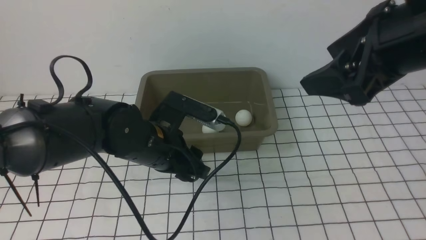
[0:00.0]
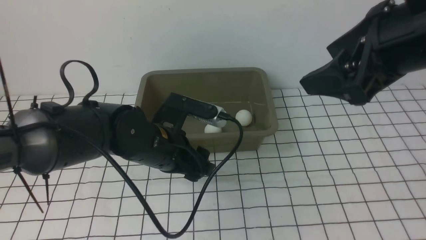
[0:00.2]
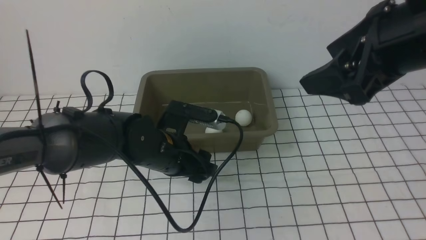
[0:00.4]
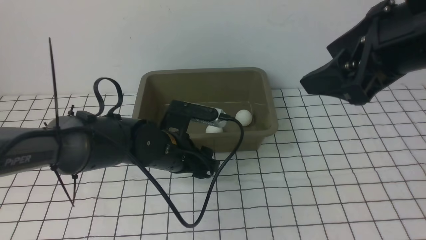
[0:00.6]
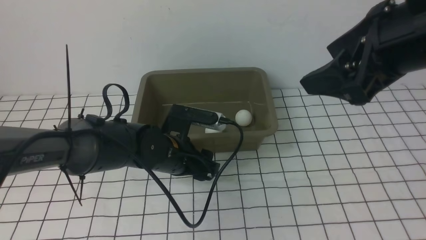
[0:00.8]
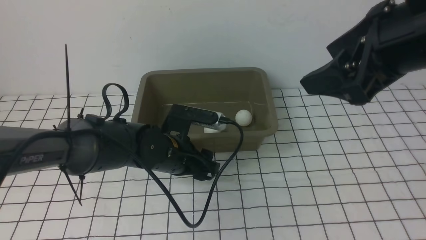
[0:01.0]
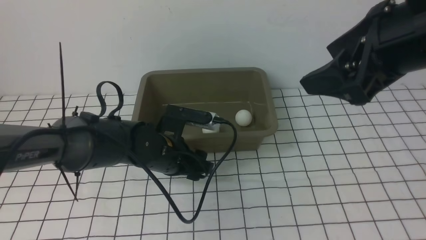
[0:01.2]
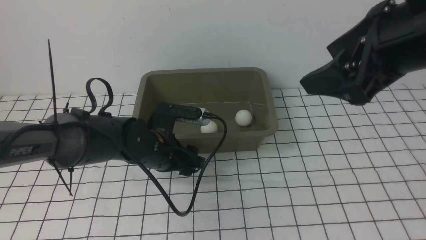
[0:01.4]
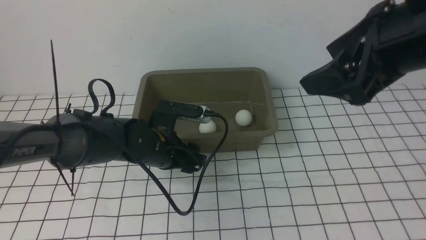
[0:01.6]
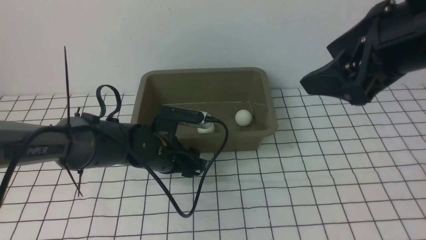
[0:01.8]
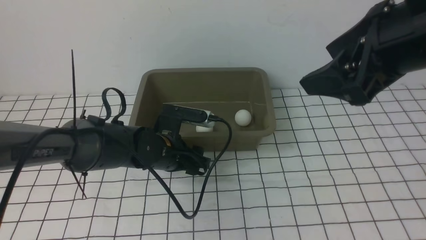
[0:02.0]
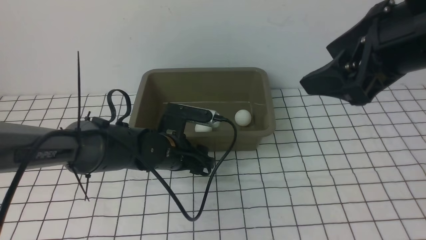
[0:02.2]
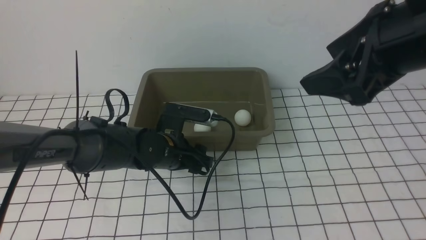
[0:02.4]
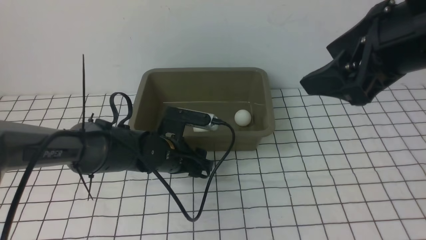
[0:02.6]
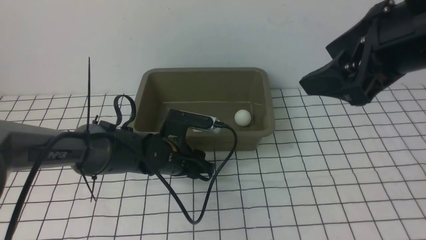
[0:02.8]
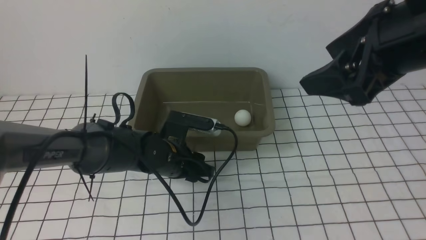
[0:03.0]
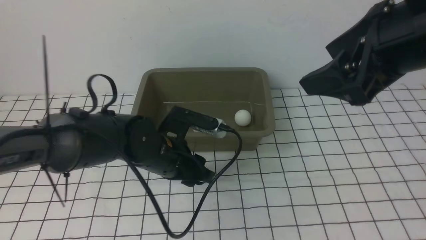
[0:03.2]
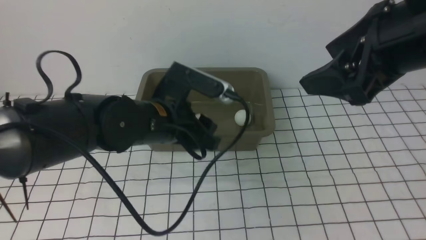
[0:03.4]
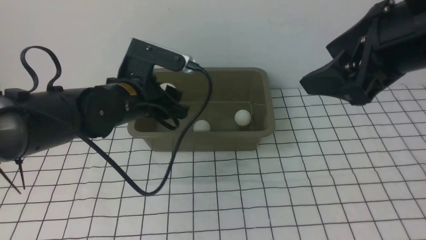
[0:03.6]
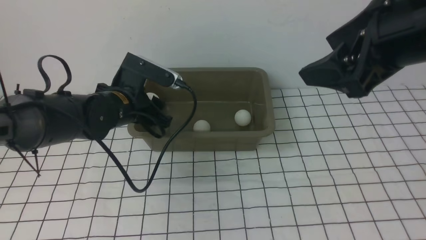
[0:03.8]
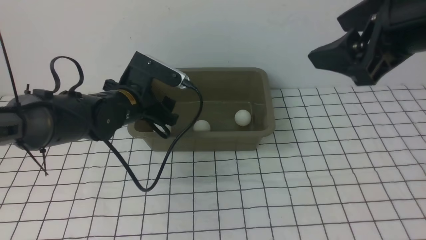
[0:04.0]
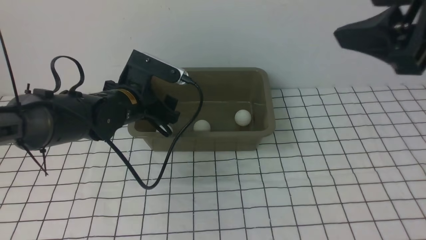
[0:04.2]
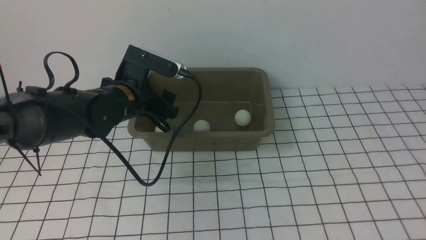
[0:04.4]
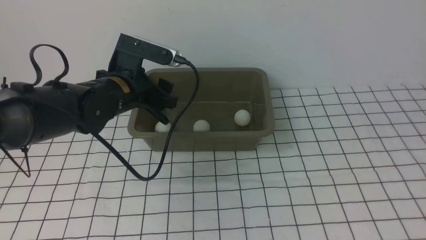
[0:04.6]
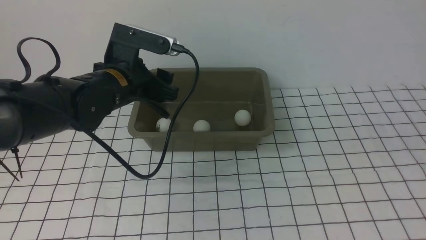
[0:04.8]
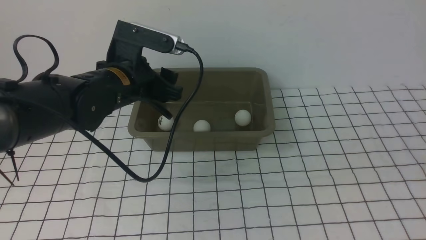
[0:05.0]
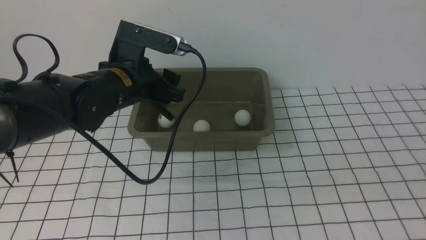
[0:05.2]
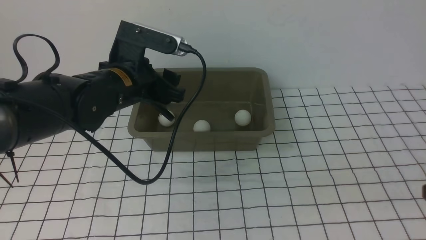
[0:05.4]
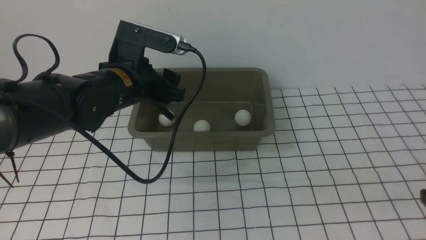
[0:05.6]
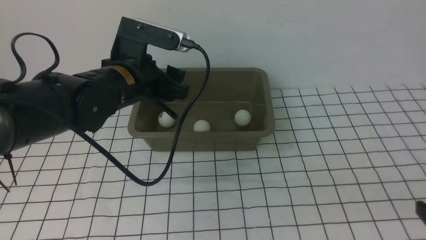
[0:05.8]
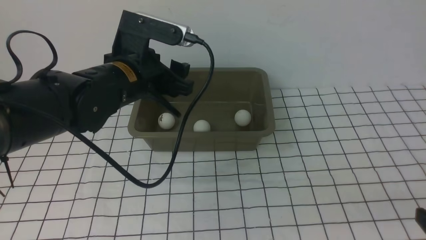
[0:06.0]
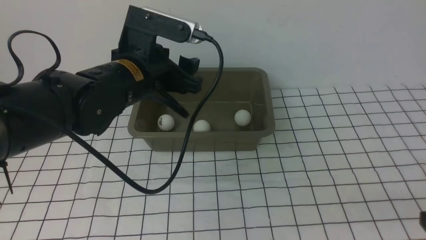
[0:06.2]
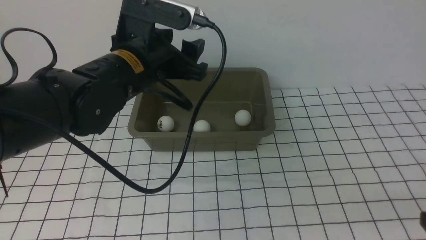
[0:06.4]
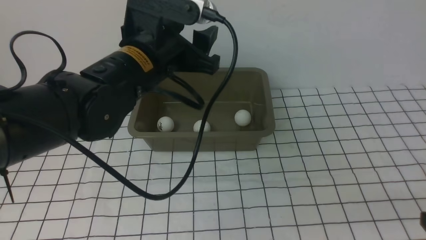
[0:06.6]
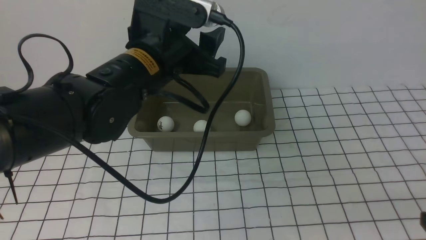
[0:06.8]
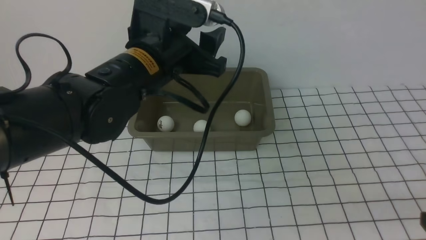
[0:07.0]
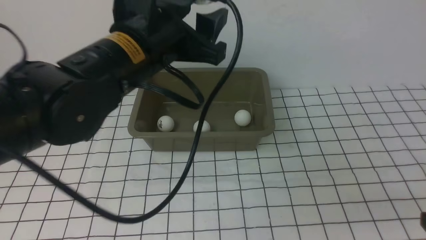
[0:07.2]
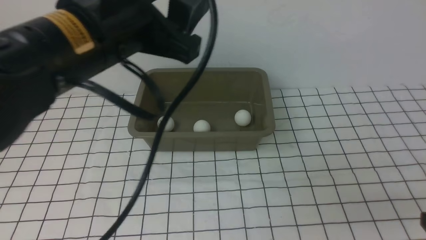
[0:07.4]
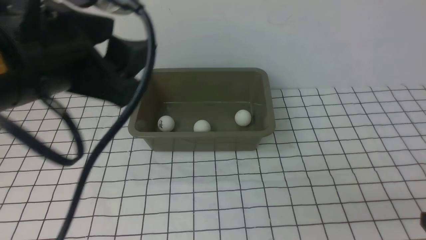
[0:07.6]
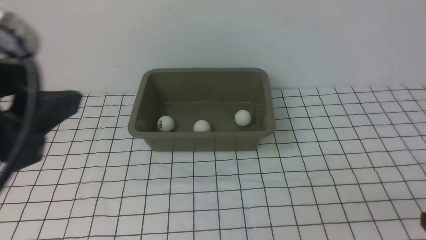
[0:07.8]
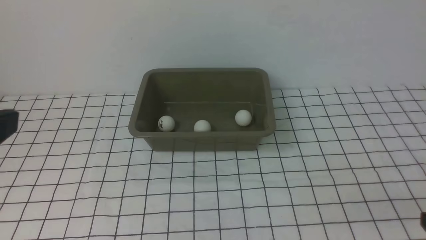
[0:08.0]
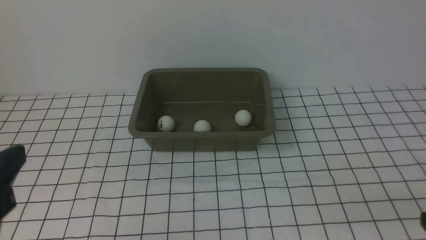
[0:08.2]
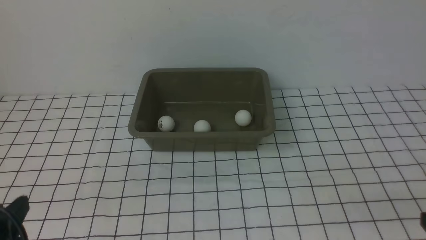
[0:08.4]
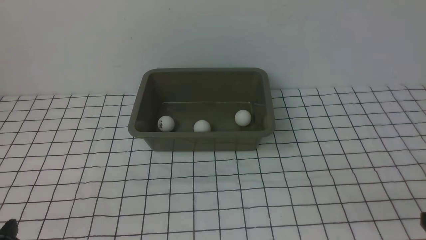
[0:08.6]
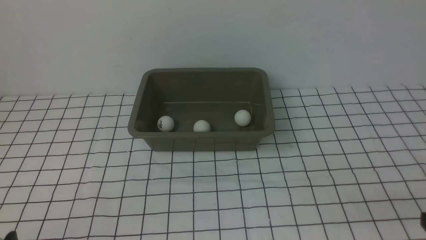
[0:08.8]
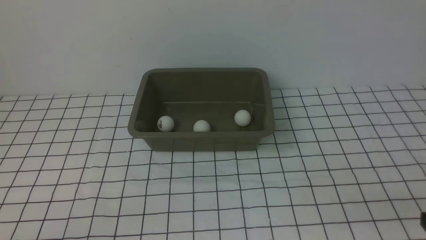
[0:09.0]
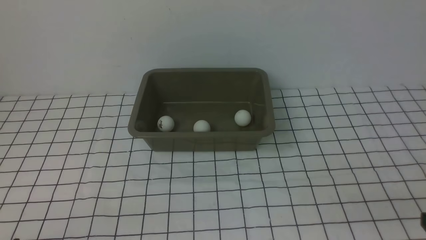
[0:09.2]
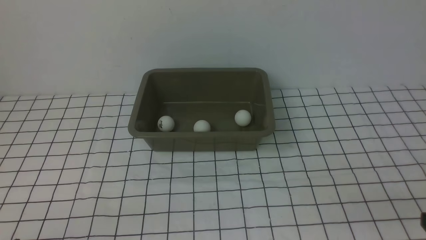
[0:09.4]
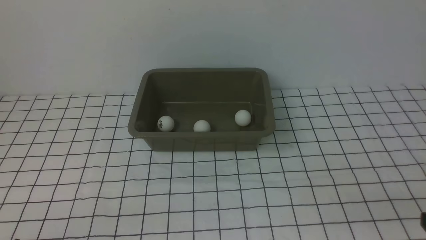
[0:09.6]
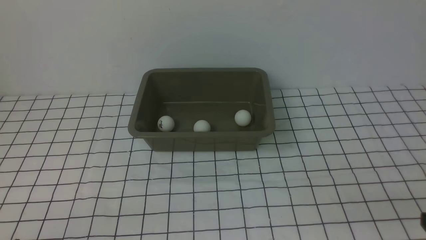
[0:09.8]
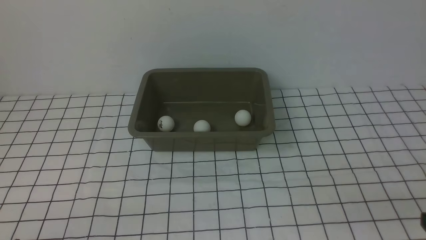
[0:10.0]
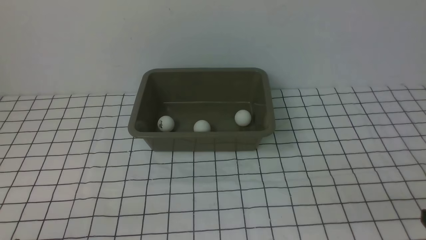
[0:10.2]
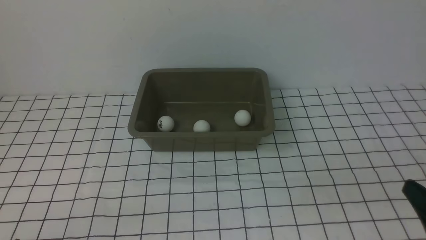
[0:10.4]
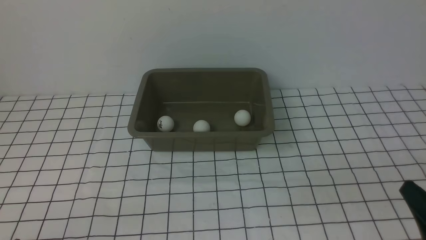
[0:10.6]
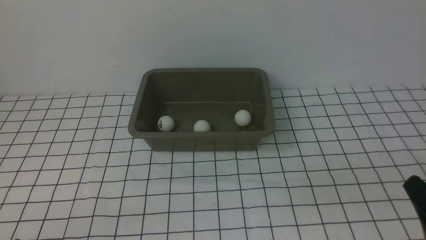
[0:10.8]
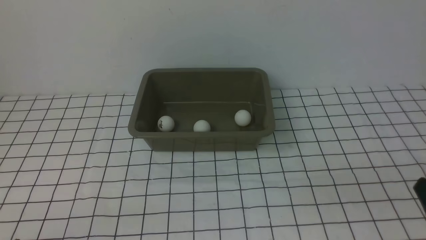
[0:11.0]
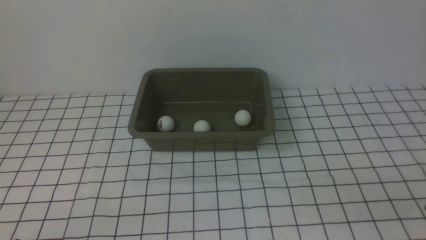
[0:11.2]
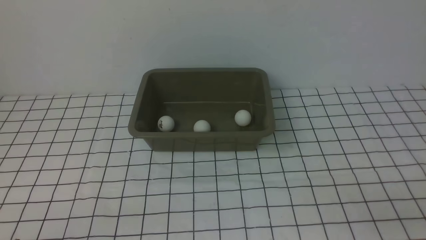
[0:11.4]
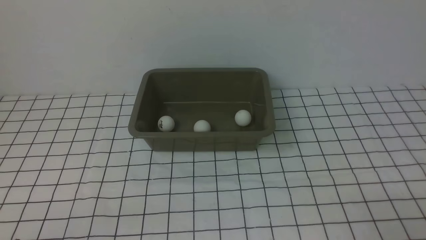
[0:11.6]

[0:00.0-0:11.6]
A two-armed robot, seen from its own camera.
Step, 0:00.0 to 0:03.2: use the left arm to clamp the table tennis ball closest to it.
Step, 0:03.4 to 0:04.0: use the left arm to put the table tennis ball into the box.
0:00.0 to 0:01.4: The left gripper travels downward by some 5 cm, and opens up.
0:01.4 to 0:02.8: The left gripper closes.
0:02.8 to 0:04.4: The left gripper is displaced upward and to the left by approximately 10 cm, and opens. The right gripper moves backward, upward and to the right, approximately 15 cm.
0:04.4 to 0:05.8: The left gripper heads upward, covering roughly 5 cm, and closes. The right gripper is displaced downward by approximately 25 cm.
0:05.8 to 0:07.2: The left gripper shifts approximately 10 cm upward and backward.
0:07.2 to 0:08.8: The left gripper shifts roughly 35 cm backward, to the left and downward.

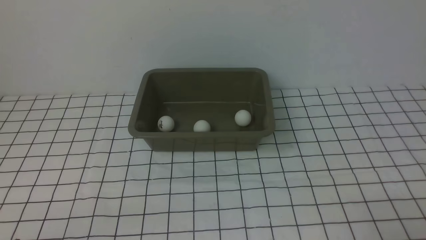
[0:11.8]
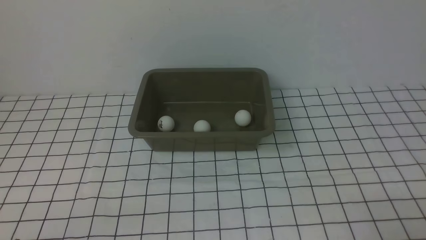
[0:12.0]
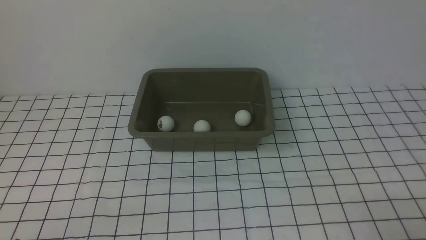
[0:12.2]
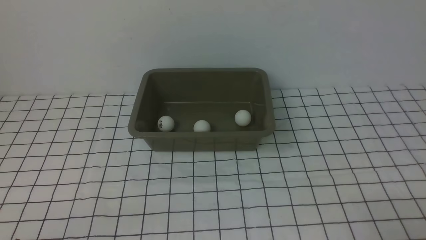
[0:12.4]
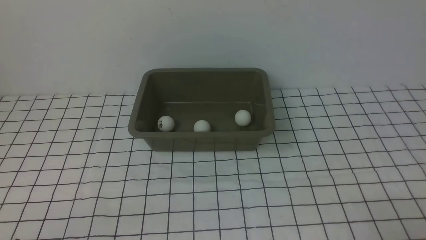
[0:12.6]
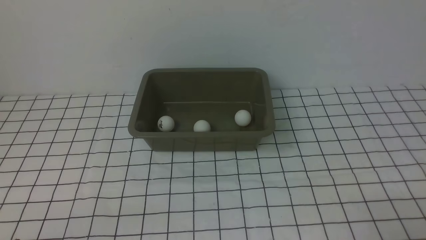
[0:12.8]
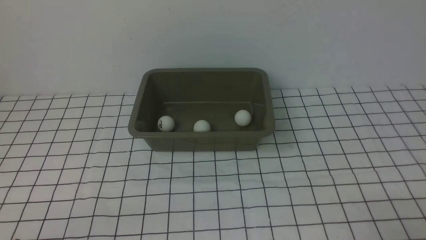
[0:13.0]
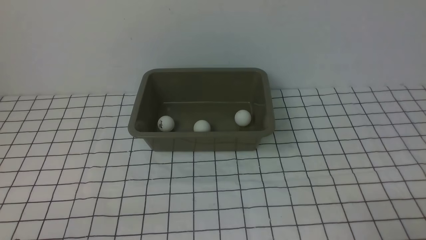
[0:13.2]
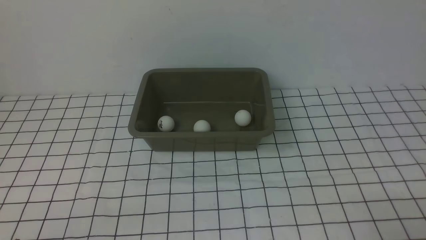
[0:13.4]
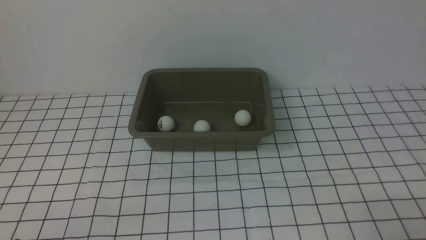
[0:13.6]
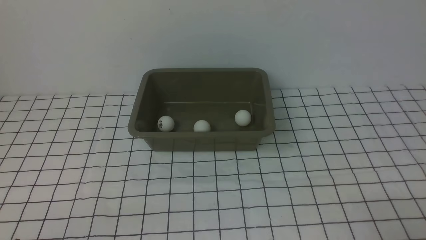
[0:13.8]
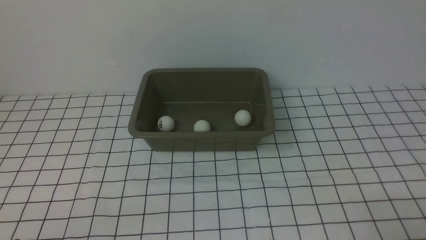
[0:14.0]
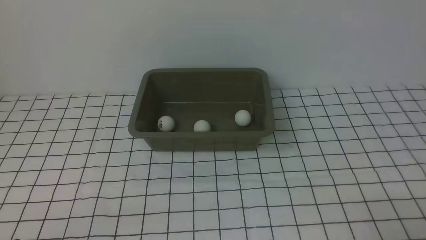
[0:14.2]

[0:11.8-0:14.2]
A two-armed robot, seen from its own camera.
0:11.8 to 0:14.2: Both grippers stay put.

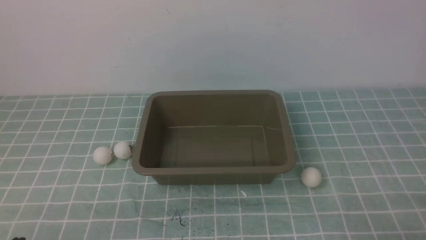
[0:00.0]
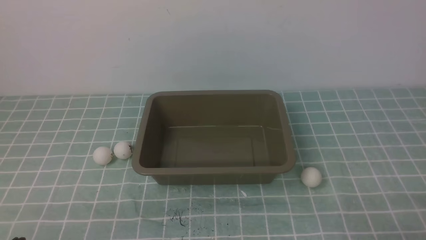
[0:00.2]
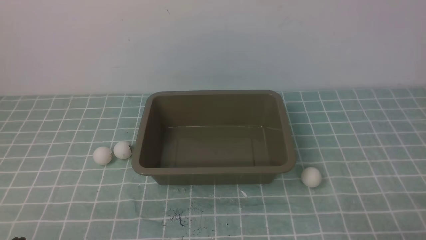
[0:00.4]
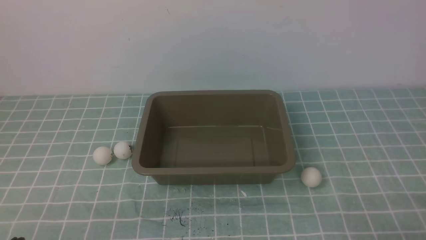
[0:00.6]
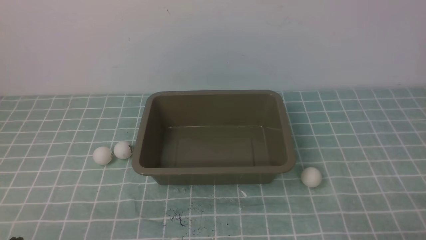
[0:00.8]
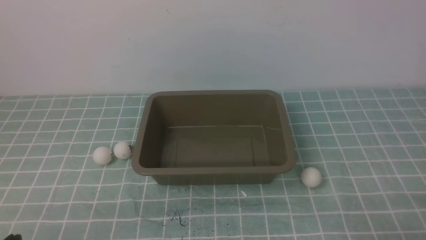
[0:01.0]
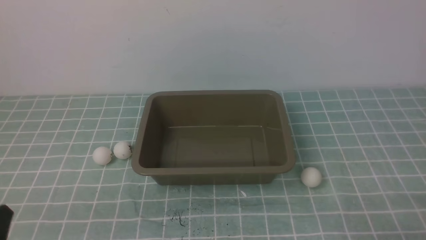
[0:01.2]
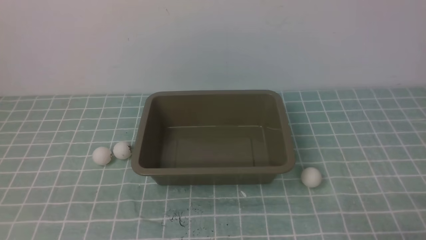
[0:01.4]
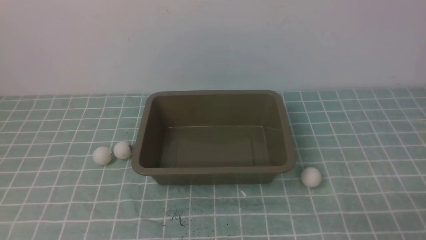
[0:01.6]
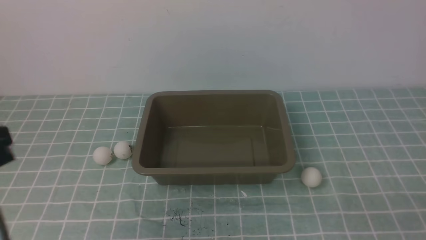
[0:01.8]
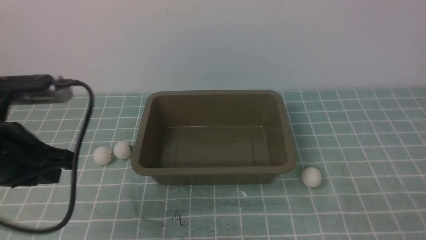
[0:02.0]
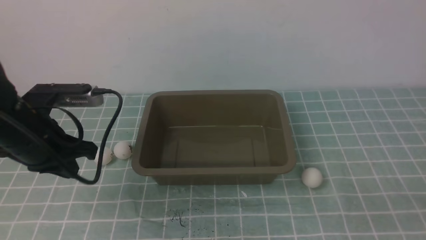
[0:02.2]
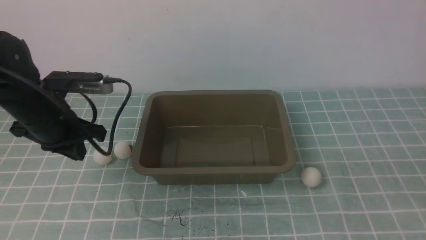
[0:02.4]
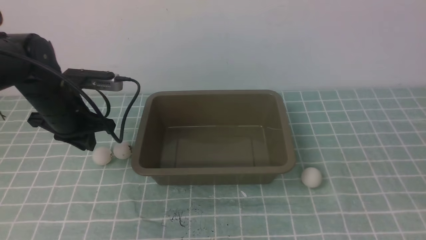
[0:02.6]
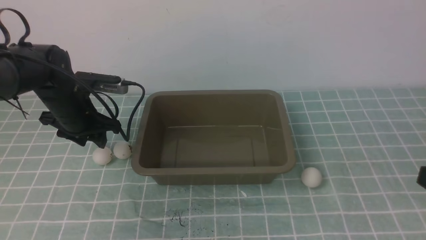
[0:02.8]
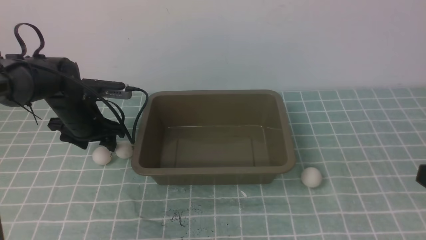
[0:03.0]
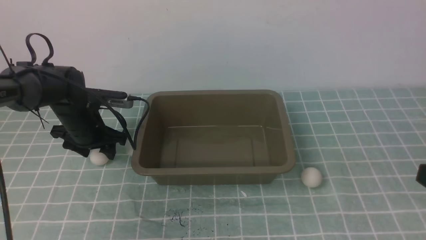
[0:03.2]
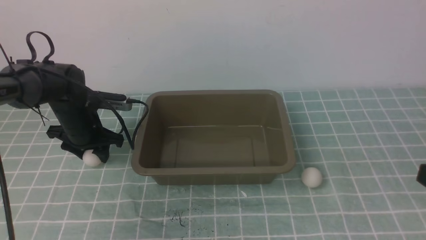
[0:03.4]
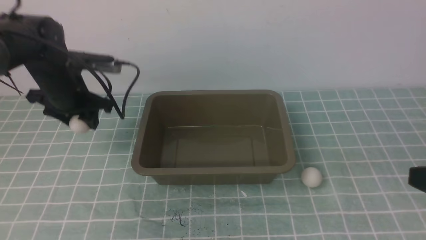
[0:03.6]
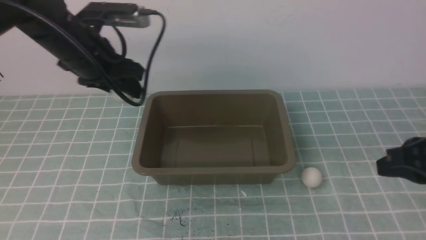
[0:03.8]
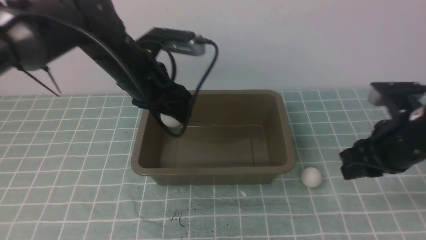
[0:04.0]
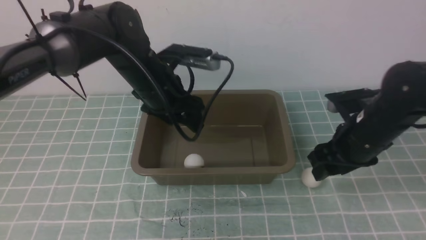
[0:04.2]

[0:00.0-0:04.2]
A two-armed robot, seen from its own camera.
Step, 0:00.0 to 0:03.4: use the left arm to clamp the table tennis ball closest to it.
0:01.4 to 0:02.8: The right gripper travels upward by roughly 15 cm, while the left gripper shifts approximately 35 cm forward, and opens up.
0:02.8 to 0:04.2: The left gripper travels to the right and upward by roughly 15 cm. Meanwhile the right gripper moves forward and downward, about 25 cm, and opens its fingers.
